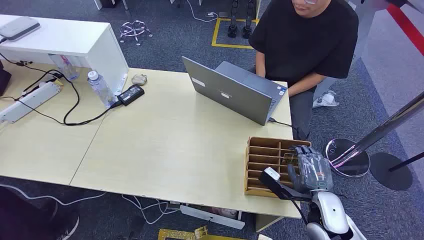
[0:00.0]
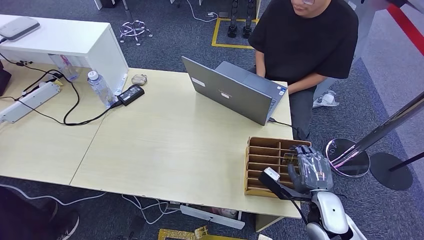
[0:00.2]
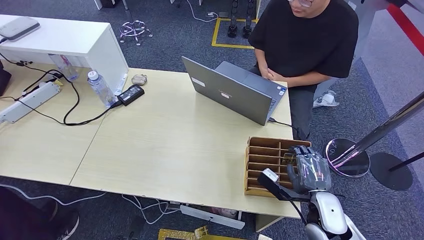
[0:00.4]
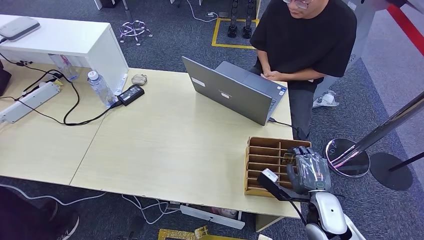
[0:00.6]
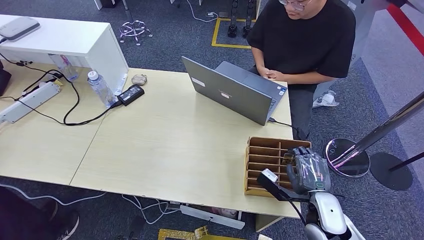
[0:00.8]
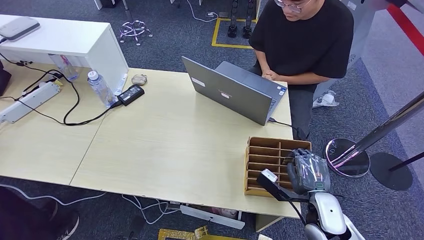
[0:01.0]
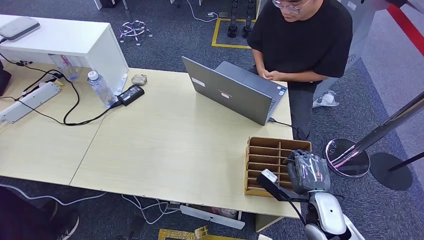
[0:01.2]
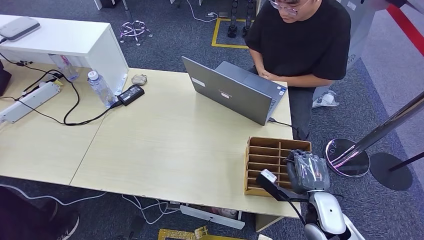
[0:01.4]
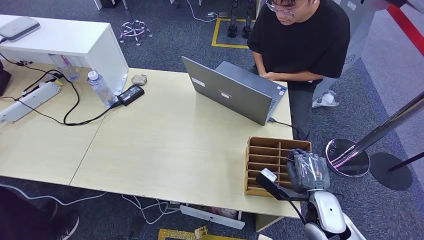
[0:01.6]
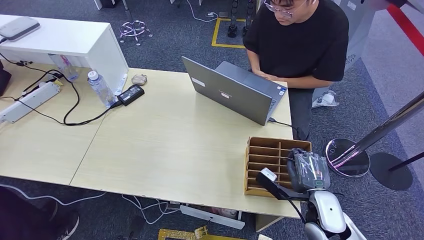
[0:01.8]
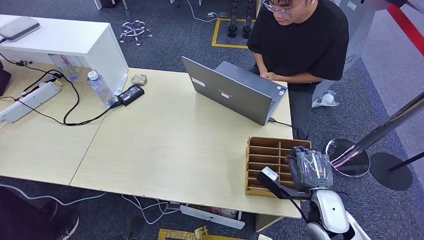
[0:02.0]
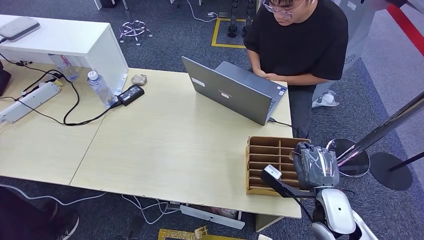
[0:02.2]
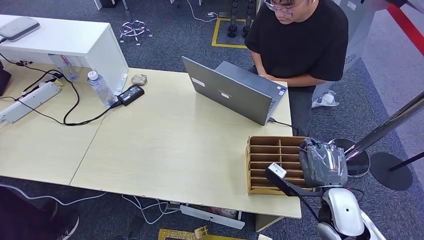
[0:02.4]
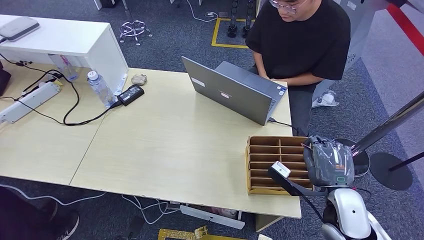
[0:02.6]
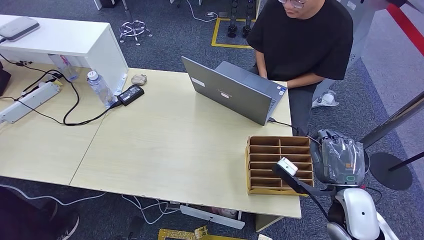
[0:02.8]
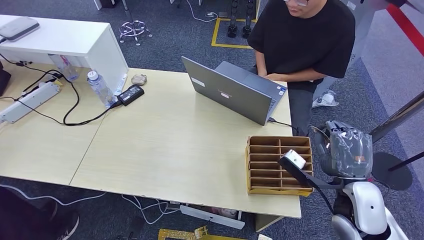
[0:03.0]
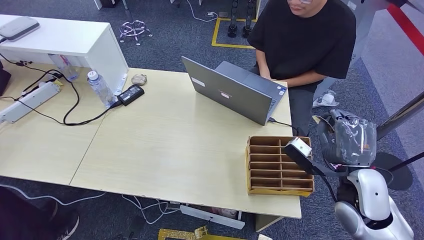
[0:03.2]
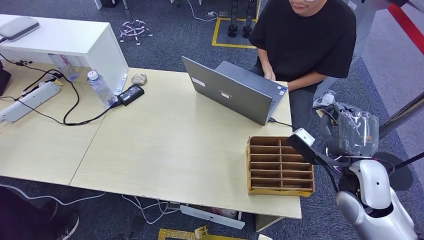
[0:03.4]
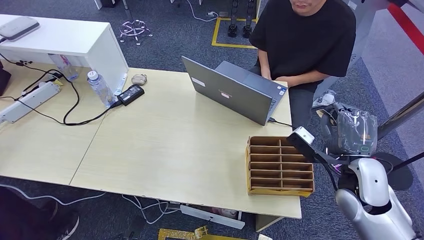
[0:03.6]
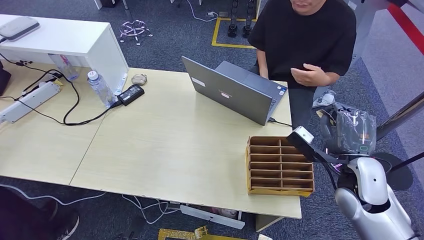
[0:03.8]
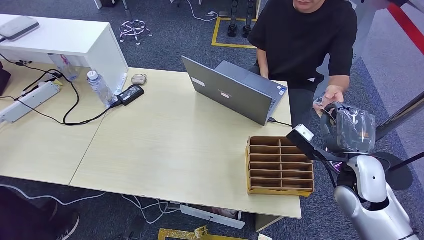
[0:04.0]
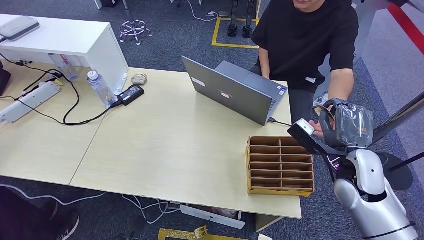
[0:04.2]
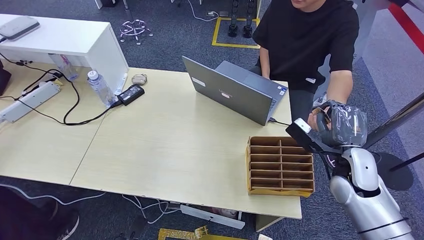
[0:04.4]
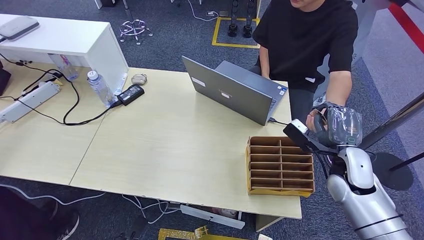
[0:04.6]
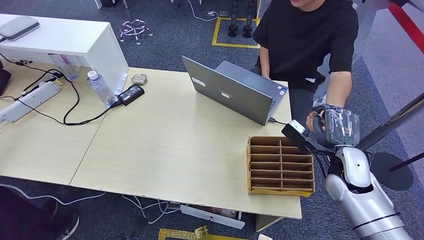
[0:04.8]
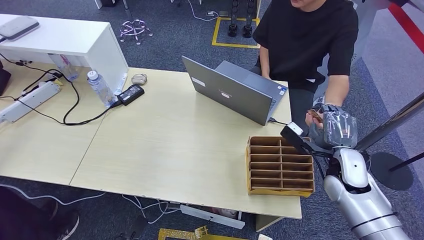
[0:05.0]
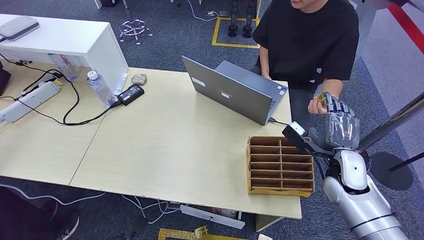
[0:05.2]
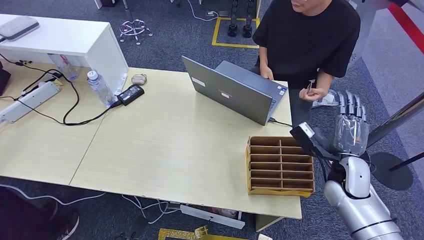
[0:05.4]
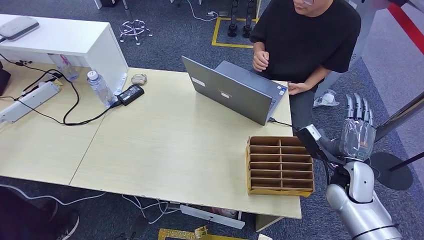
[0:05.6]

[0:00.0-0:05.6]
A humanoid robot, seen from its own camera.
Step, 0:00.0 to 0:03.8: Pick up the key card from the card box.
Step, 0:04.0 to 0:05.6: Hand the key card to the target.
0:01.4 to 0:02.8: The right hand heads upward, covering some 10 cm.
0:02.8 to 0:04.2: The right hand shifts about 10 cm forward.
0:04.2 to 0:05.6: The right hand heads downward, covering approximately 5 cm.
